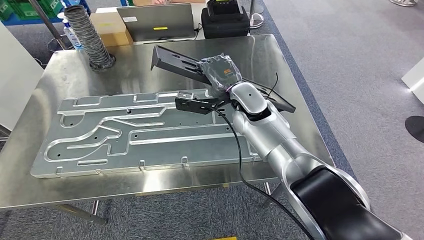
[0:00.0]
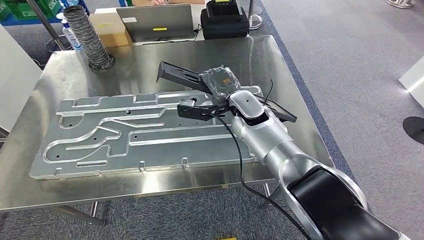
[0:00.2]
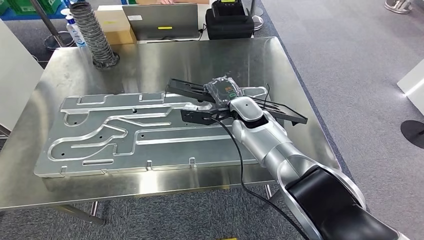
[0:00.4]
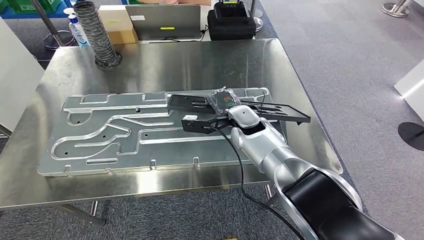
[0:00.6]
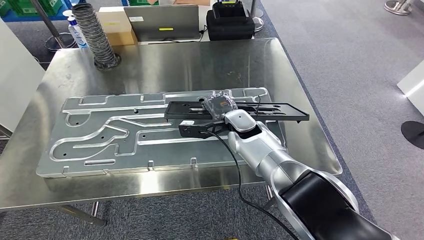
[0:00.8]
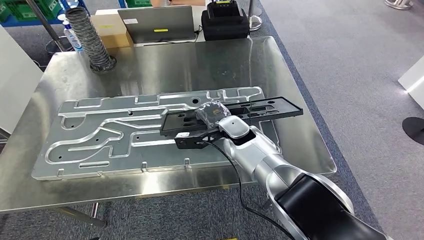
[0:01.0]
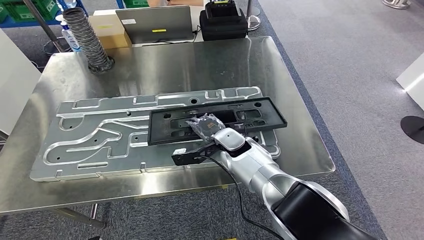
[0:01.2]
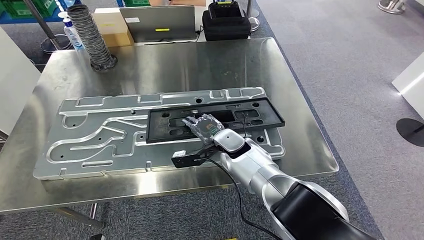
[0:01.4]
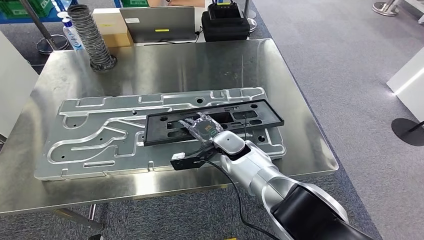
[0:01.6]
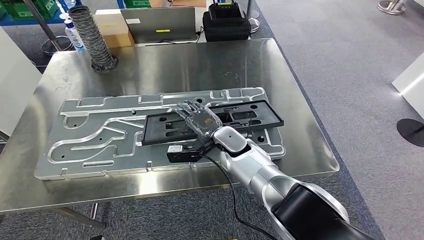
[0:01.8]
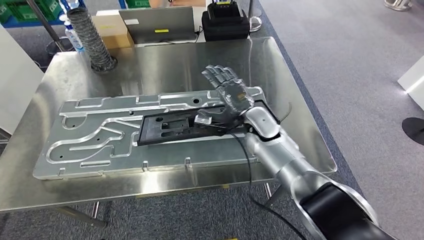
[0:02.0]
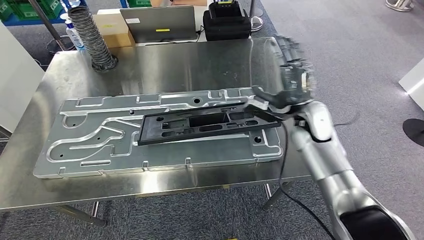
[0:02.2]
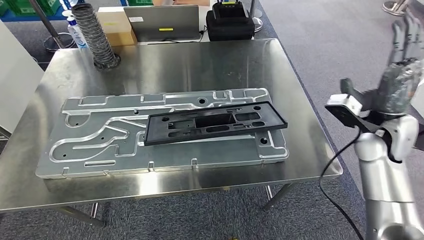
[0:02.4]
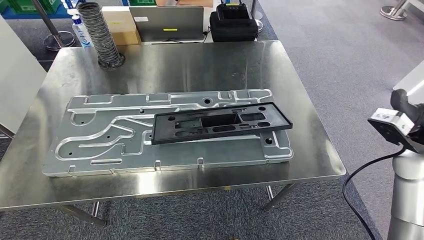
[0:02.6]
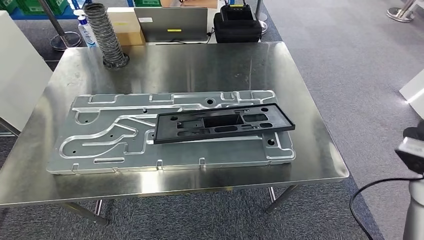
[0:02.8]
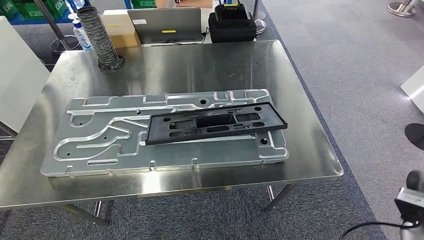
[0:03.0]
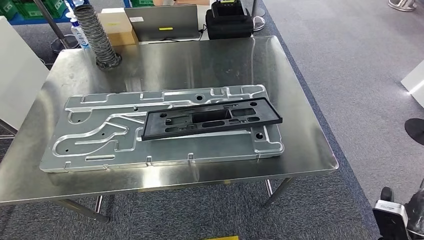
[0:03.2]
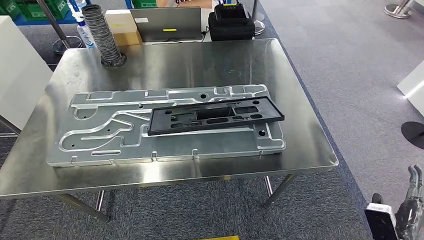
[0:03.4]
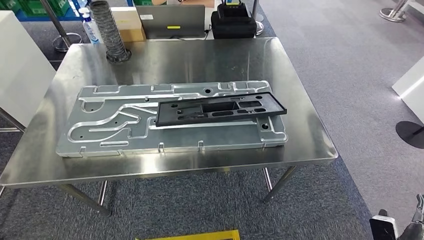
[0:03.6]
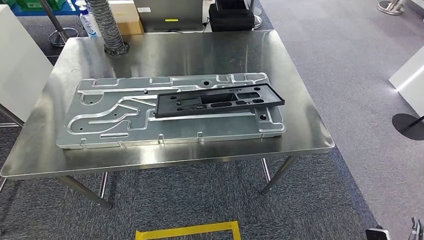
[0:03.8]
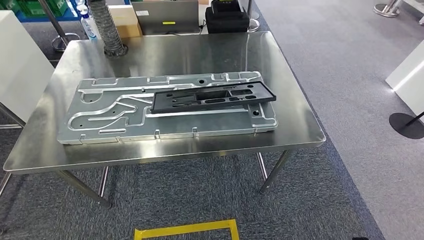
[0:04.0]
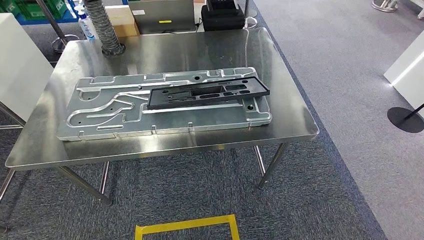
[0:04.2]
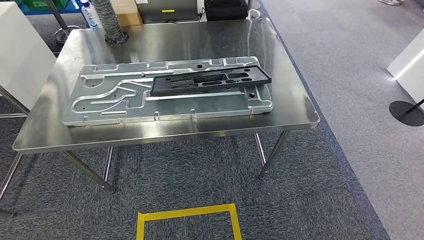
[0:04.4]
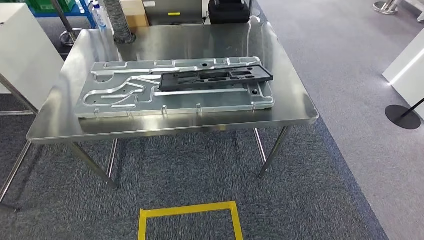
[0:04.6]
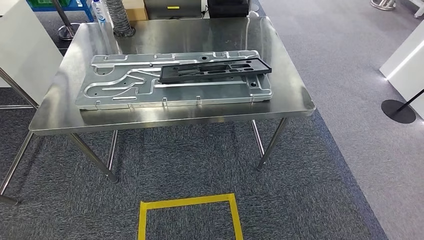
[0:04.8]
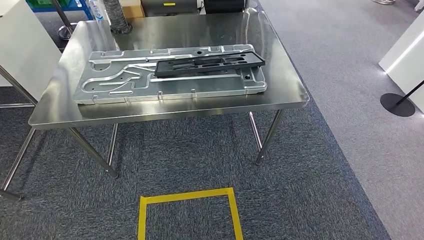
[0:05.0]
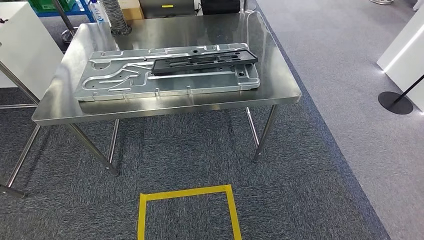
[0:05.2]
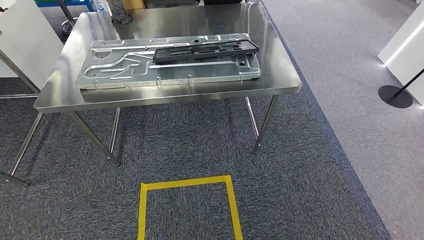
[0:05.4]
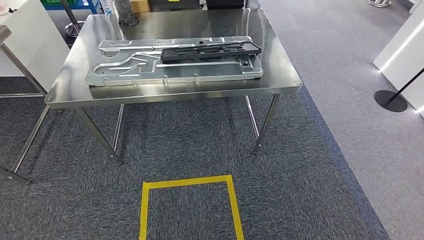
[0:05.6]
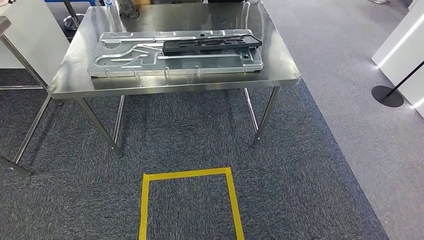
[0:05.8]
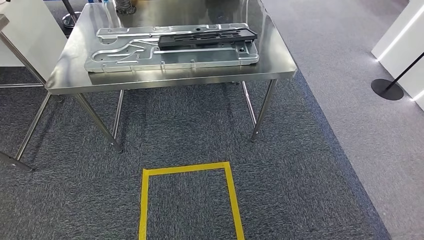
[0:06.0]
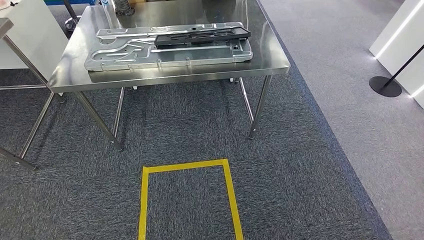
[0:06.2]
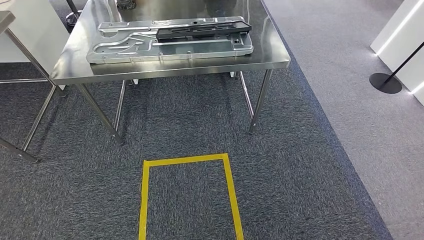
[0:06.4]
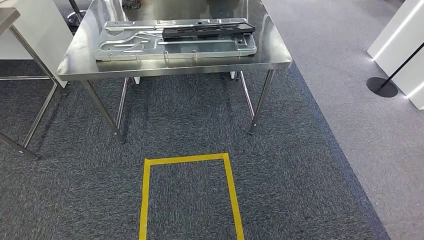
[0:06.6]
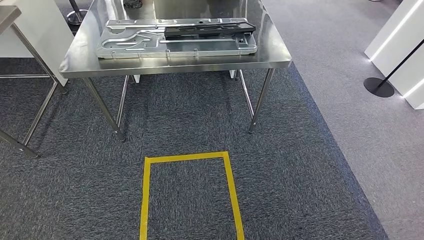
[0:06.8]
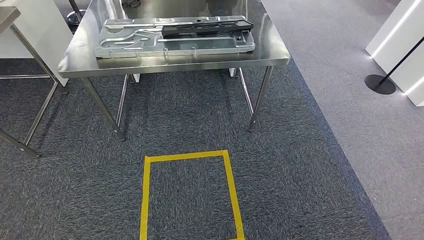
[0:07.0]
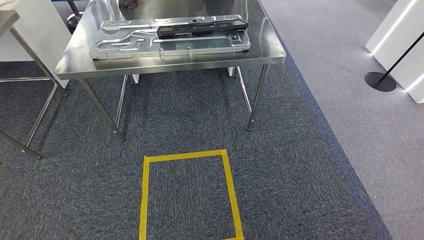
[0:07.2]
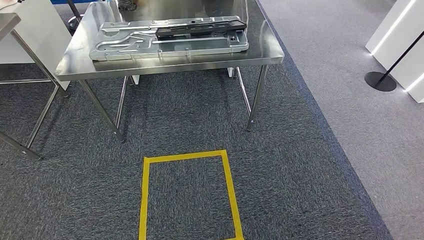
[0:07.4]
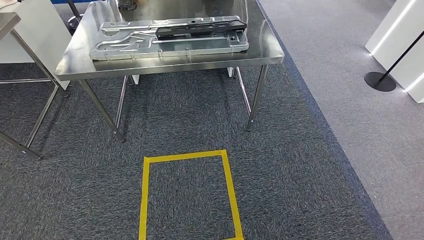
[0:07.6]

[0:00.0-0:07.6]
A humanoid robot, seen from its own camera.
Step, 0:00.0 to 0:02.2: Insert the large material into the corresponding slot on the workbench.
Step, 0:03.8 to 0:07.6: Move to the initial position of the shelf.
0:06.0 to 0:07.6: The hands move only a little.
